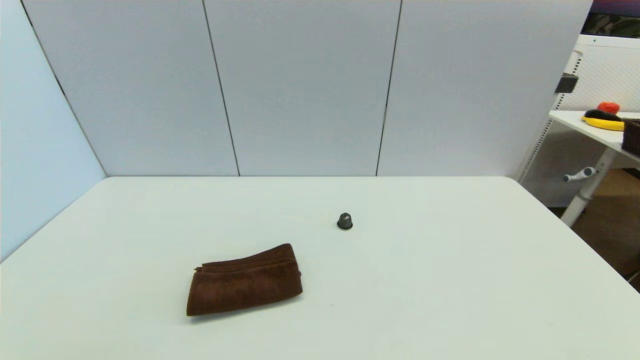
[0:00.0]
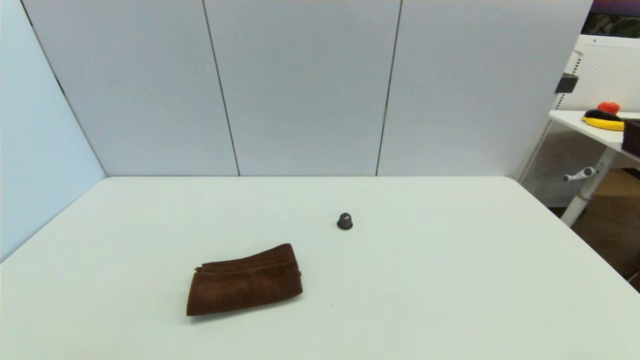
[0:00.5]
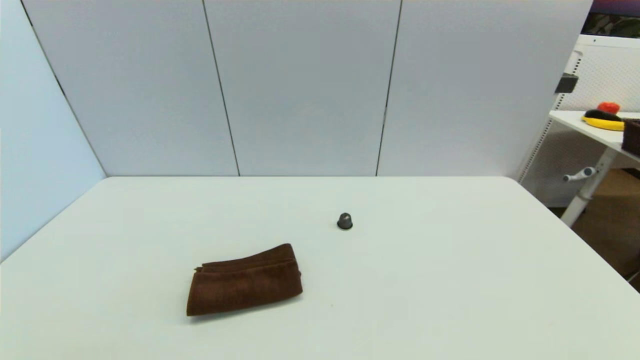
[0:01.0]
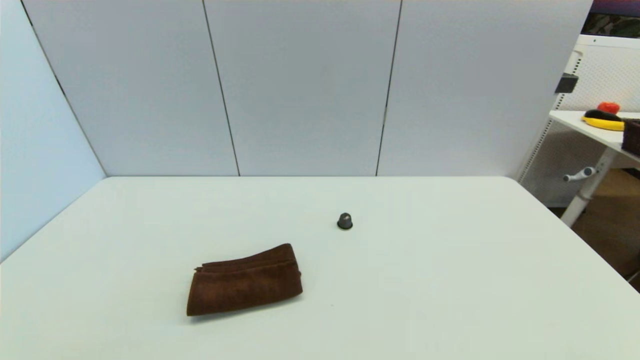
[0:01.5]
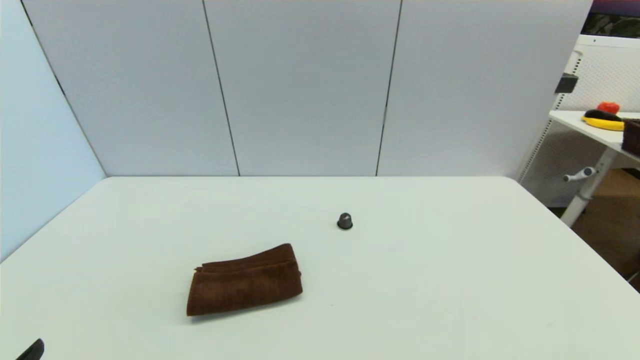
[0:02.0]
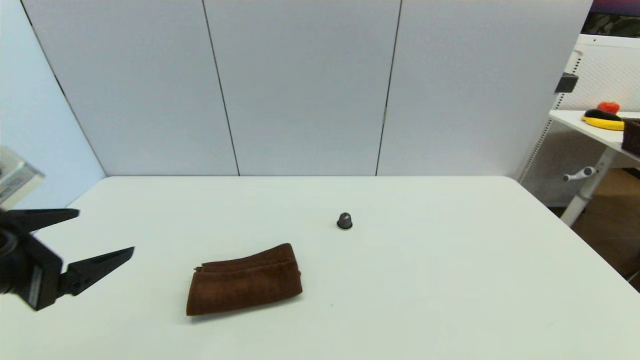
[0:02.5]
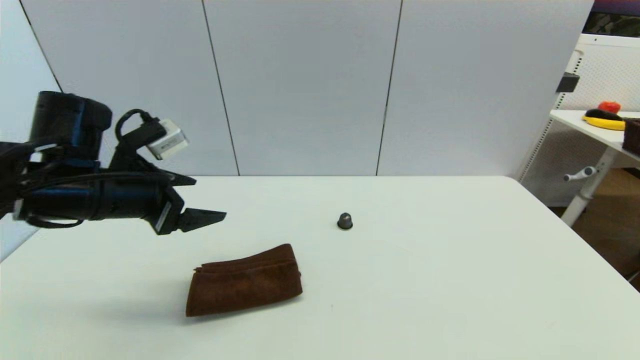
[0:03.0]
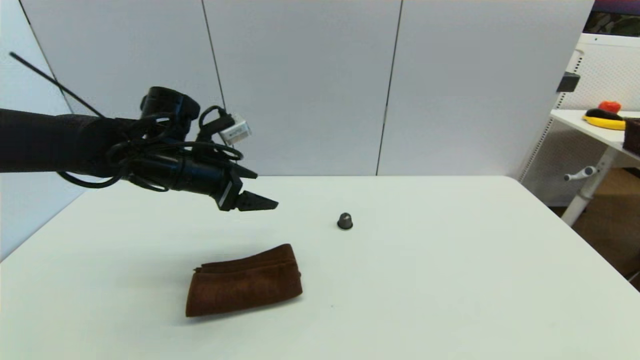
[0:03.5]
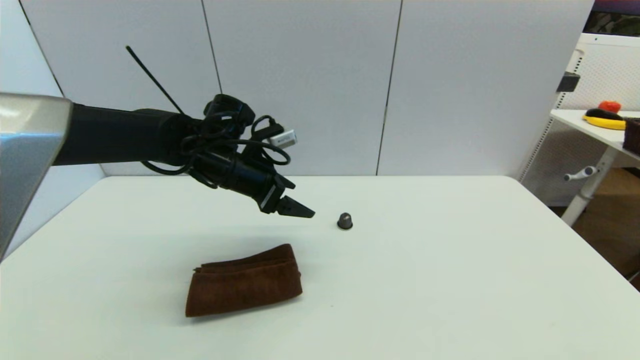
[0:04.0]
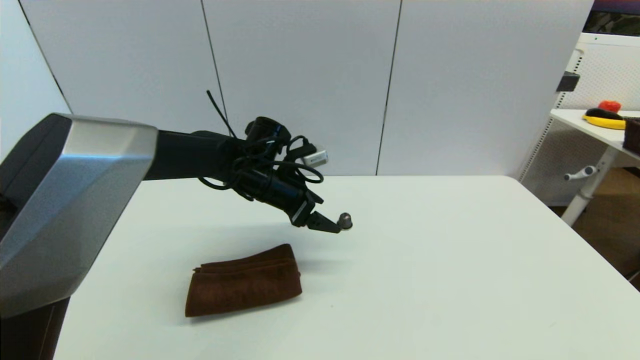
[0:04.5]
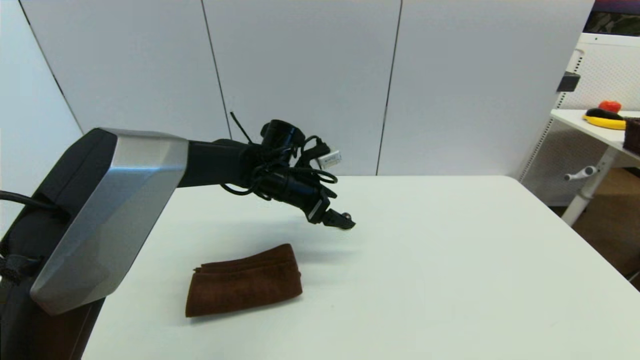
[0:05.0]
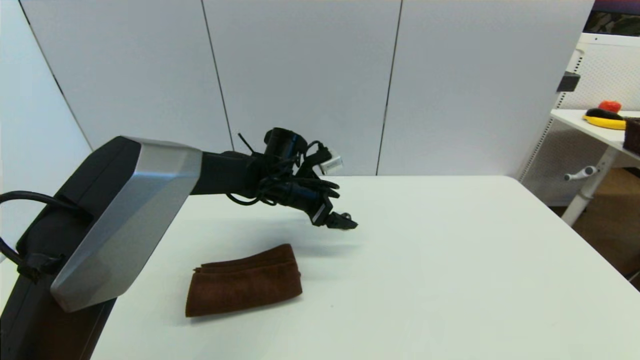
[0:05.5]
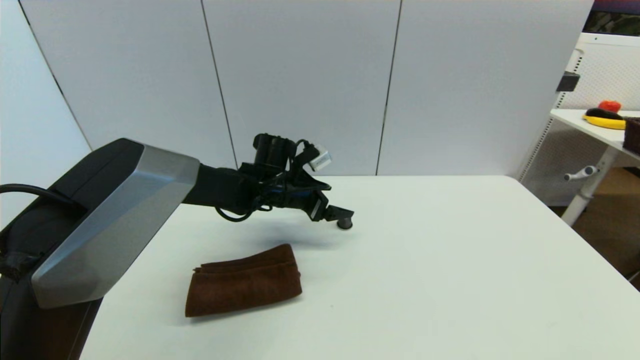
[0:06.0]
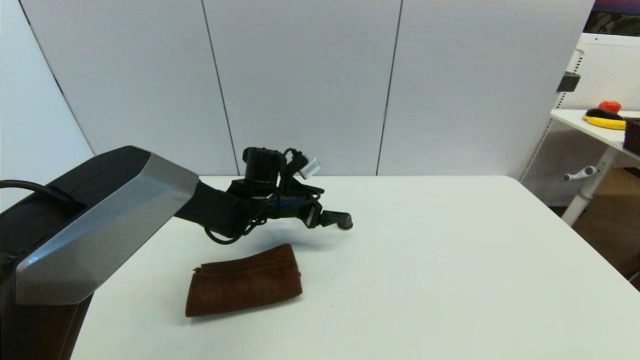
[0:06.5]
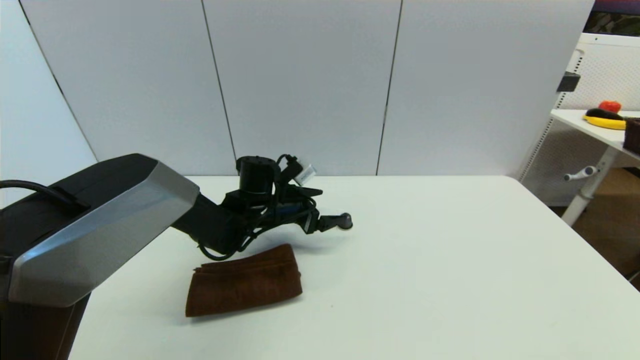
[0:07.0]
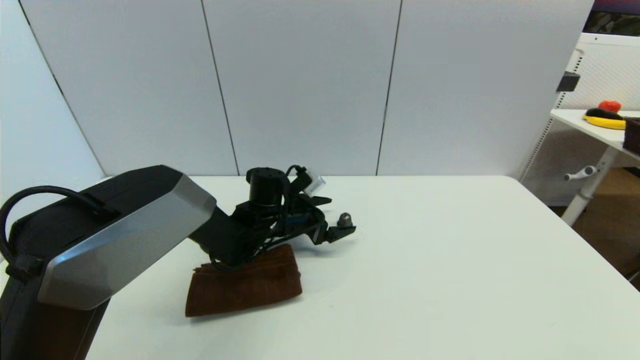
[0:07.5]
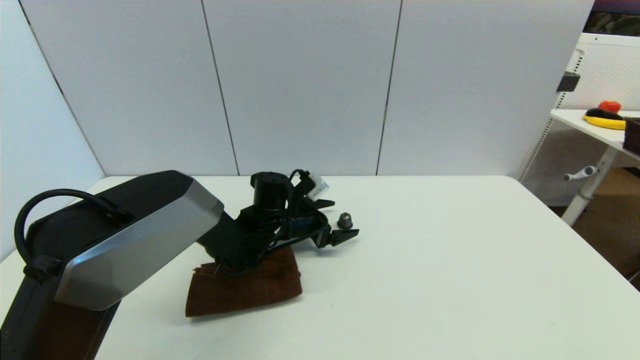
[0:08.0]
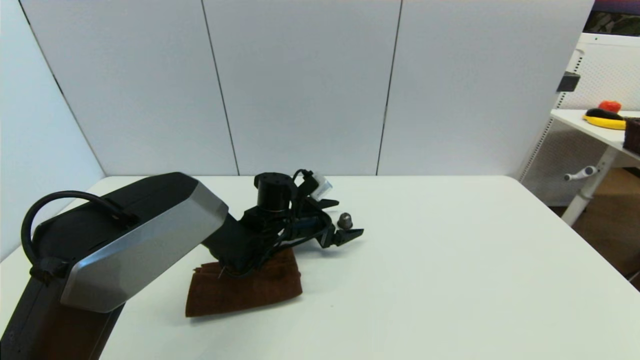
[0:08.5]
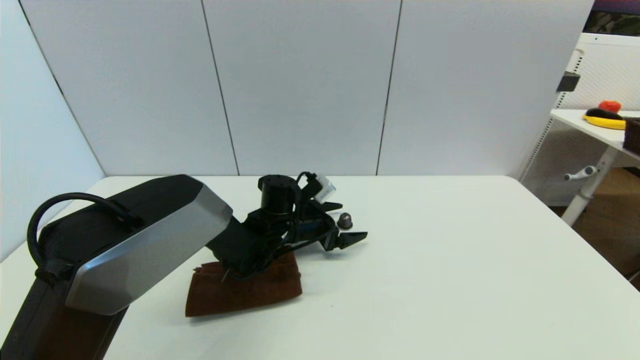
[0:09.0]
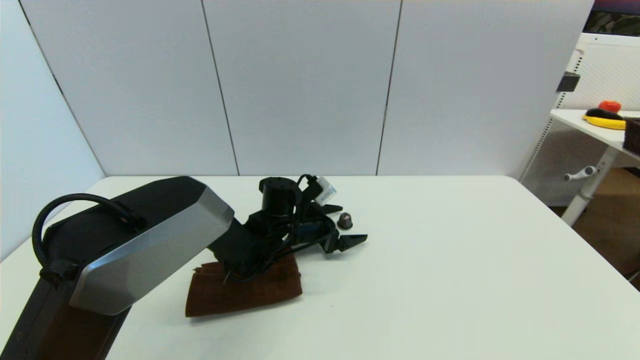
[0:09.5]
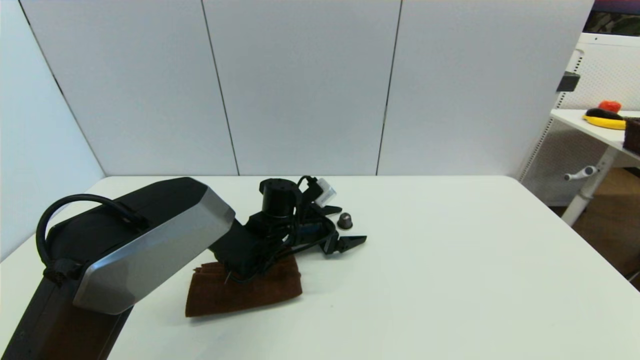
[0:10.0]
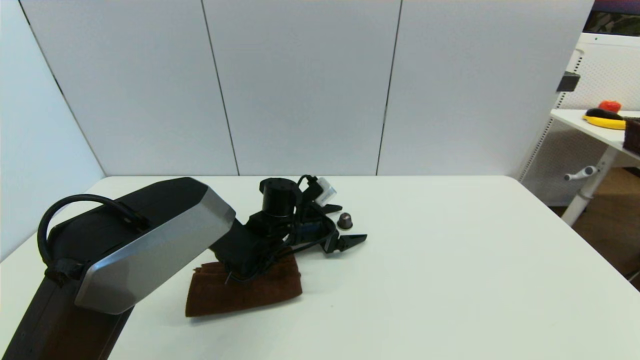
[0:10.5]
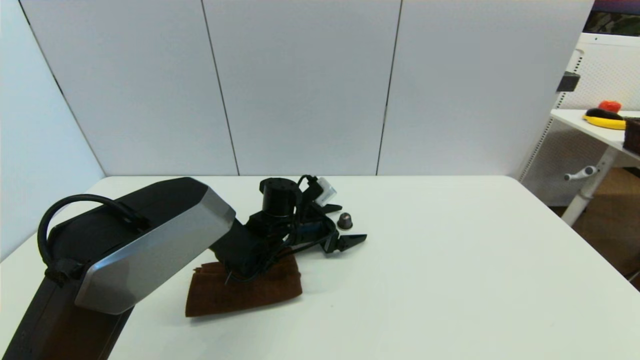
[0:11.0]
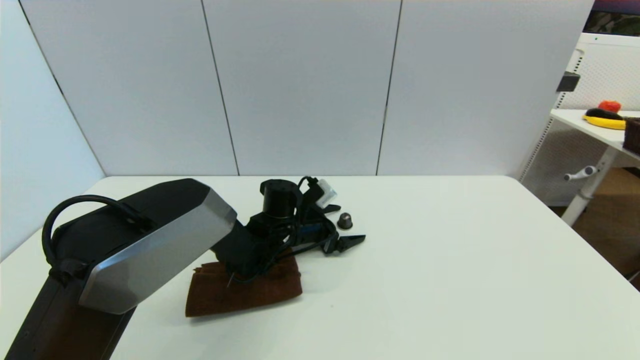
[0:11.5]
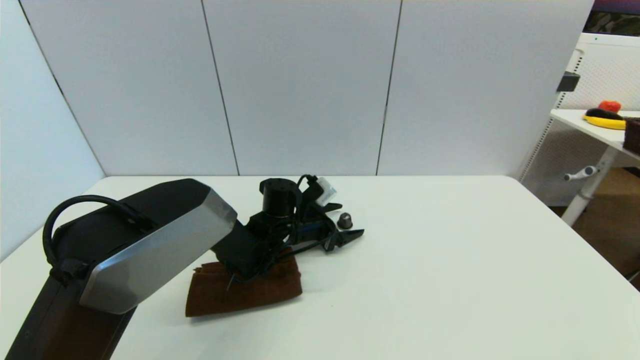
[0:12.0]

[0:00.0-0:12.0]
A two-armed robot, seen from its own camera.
0:02.0 to 0:04.0: The left gripper goes about 40 cm forward and to the right.
0:04.0 to 0:06.0: The left gripper goes approximately 10 cm downward, to the right and forward.
0:06.0 to 0:08.0: The left gripper shifts some 5 cm downward.
0:08.0 to 0:10.0: The grippers stay close to where they were, moving slightly.
0:10.0 to 0:12.0: Both grippers stay about where they are.

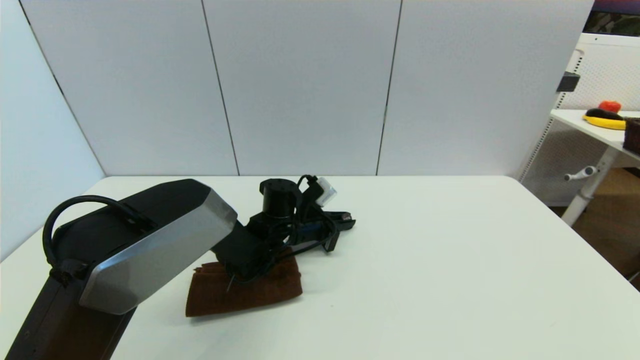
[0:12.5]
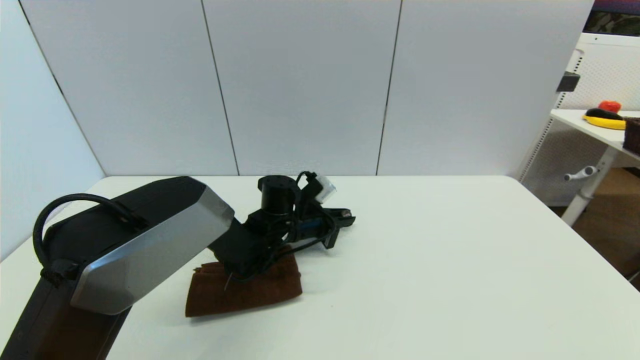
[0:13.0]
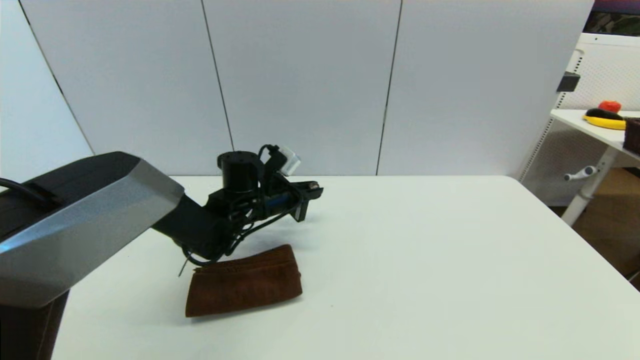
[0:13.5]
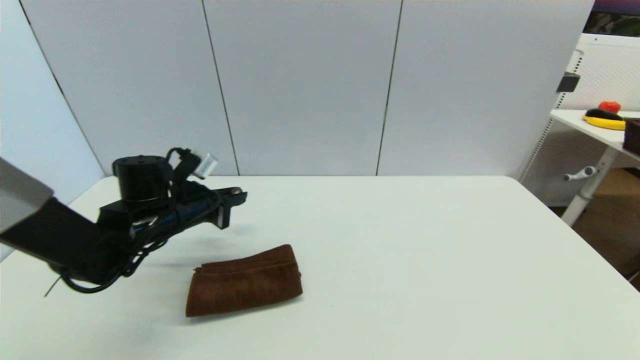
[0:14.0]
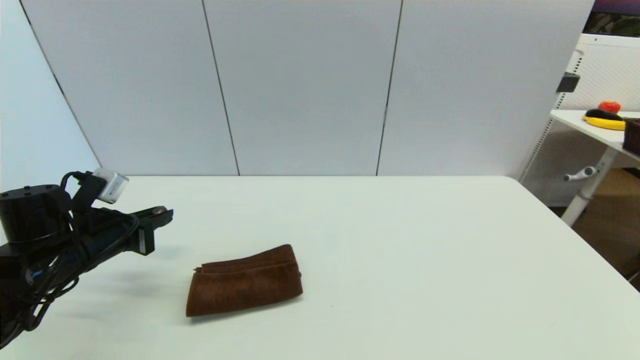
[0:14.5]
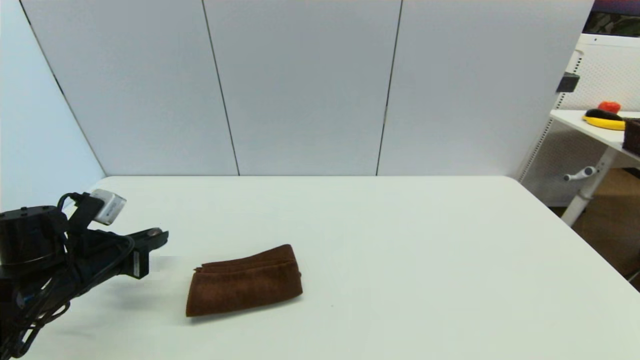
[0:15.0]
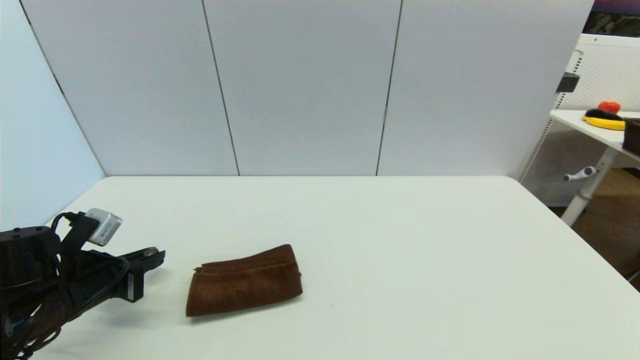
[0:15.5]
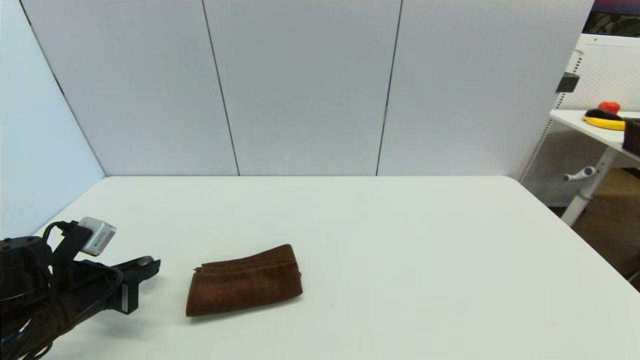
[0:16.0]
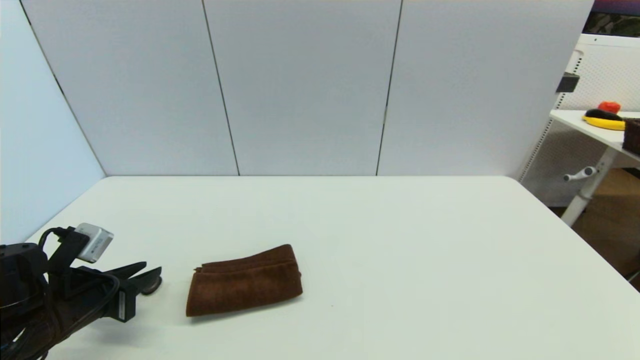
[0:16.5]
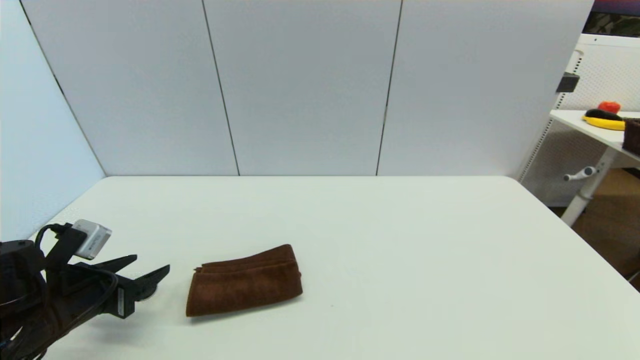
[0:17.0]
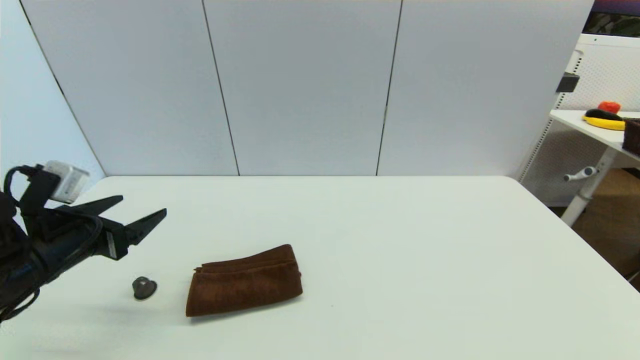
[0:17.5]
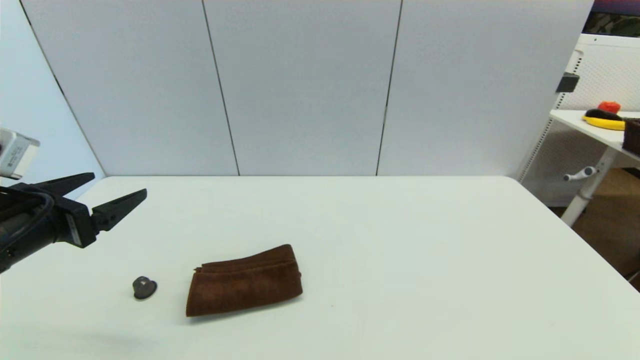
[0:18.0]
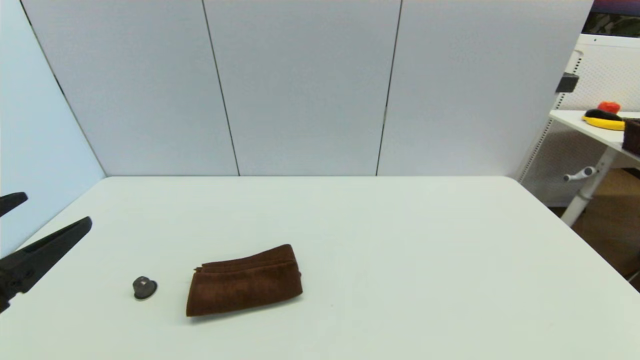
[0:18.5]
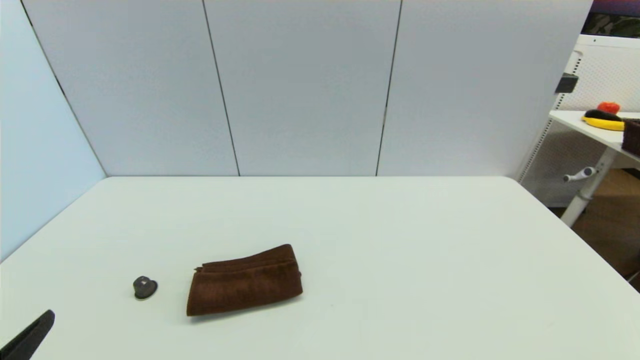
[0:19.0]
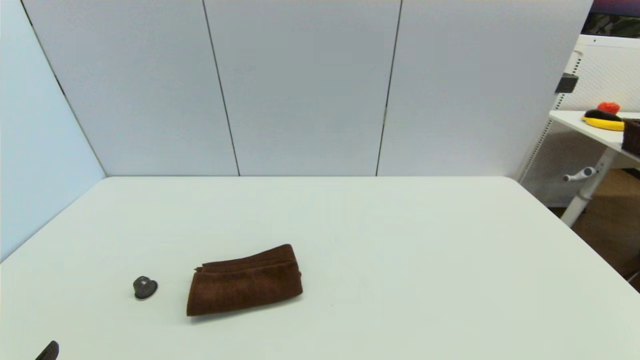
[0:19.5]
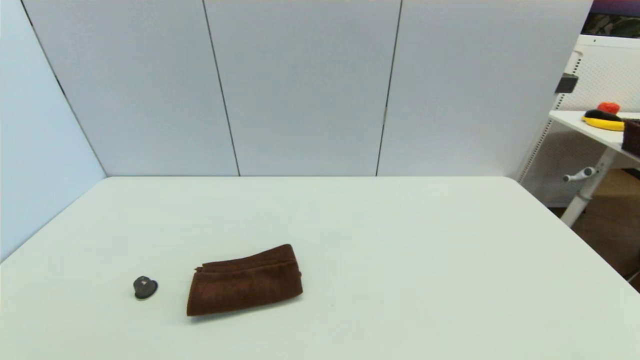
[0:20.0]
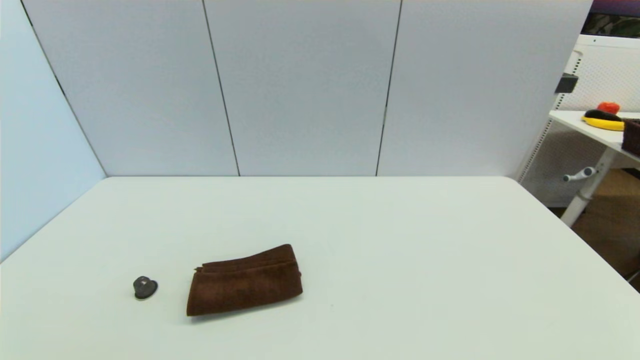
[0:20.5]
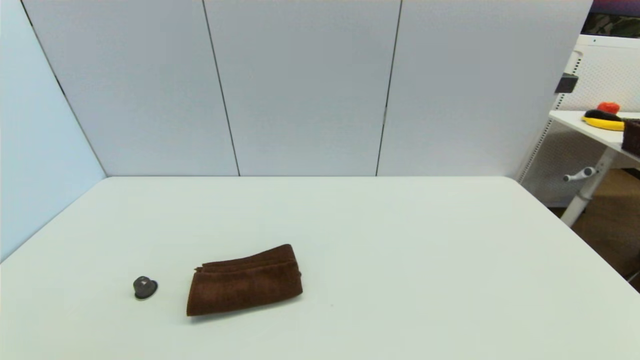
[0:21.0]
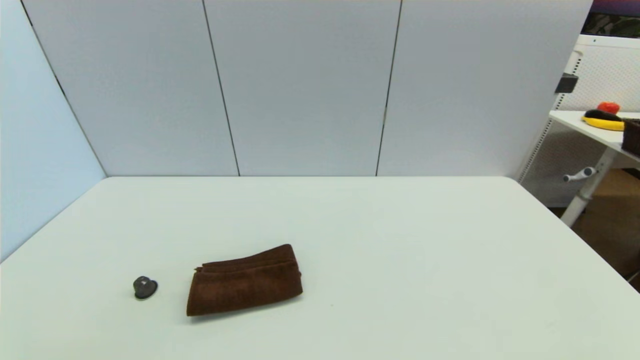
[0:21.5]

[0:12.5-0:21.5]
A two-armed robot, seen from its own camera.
Step, 0:13.5 to 0:16.5: Place the coffee capsule on the table with left gripper.
0:12.5 to 0:14.5: The left gripper moves to the left and backward, approximately 30 cm.
0:14.5 to 0:17.0: The left gripper heads backward, covering roughly 5 cm, and opens its fingers.
0:17.0 to 0:19.5: The left gripper travels backward by some 20 cm.
